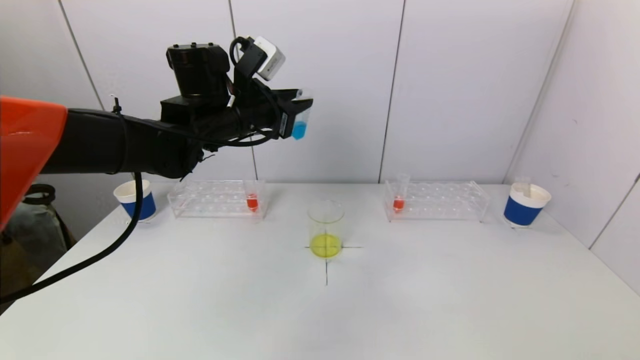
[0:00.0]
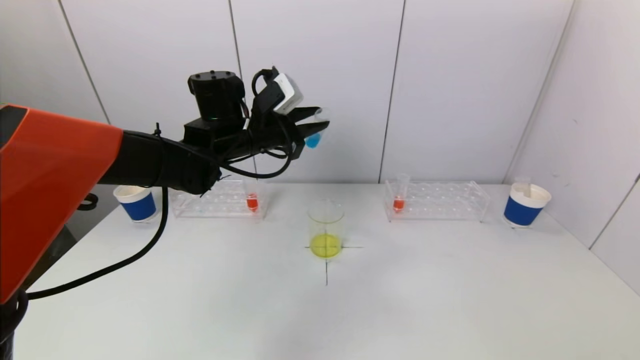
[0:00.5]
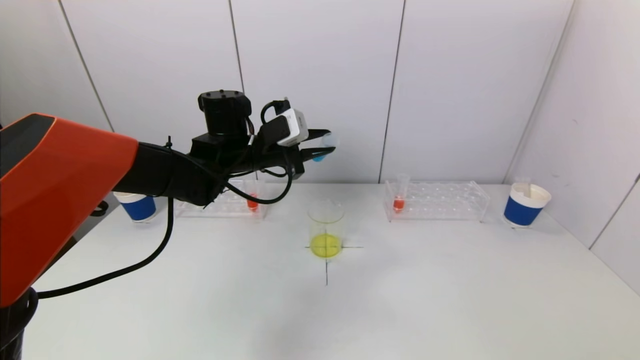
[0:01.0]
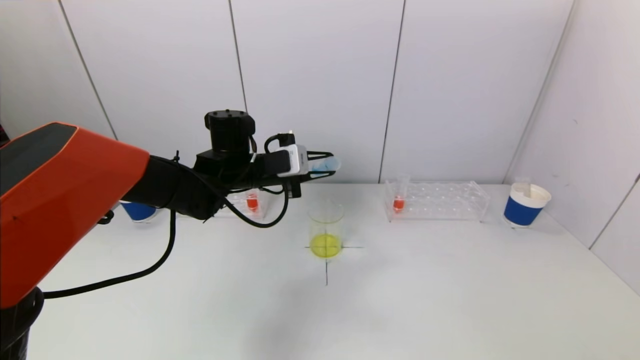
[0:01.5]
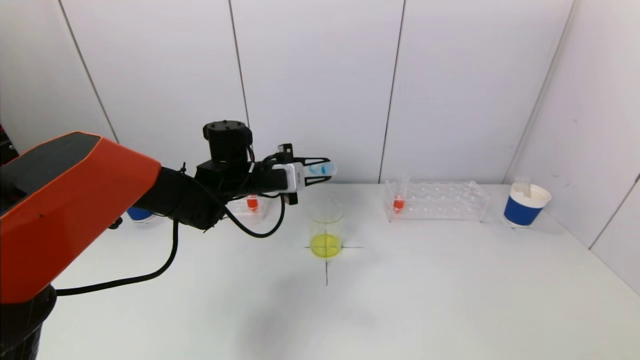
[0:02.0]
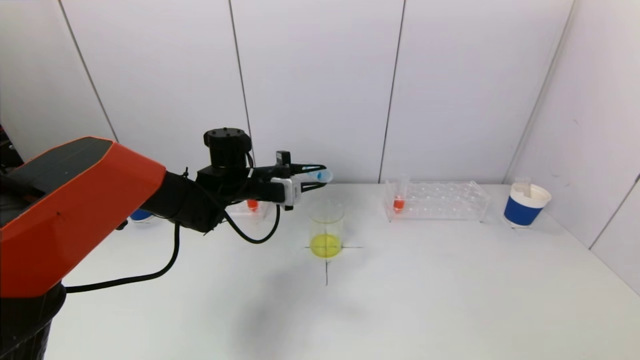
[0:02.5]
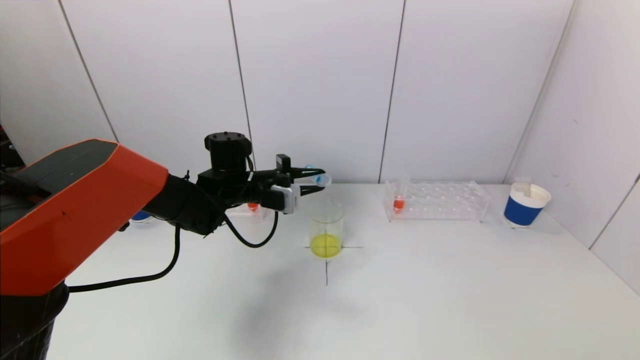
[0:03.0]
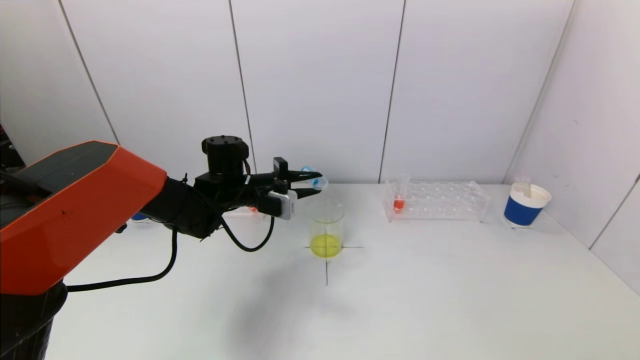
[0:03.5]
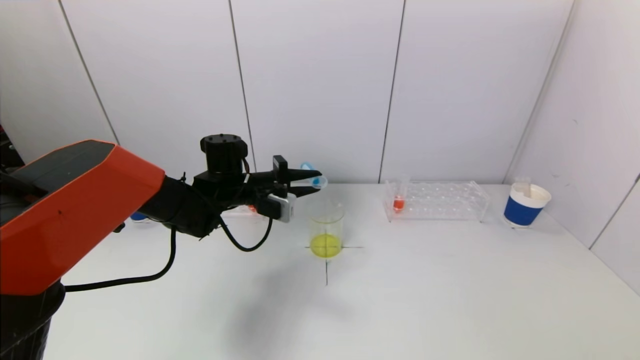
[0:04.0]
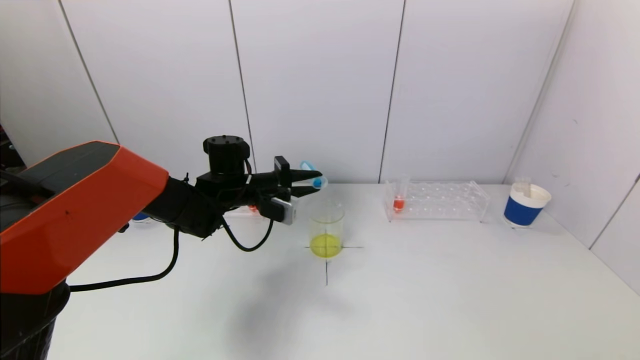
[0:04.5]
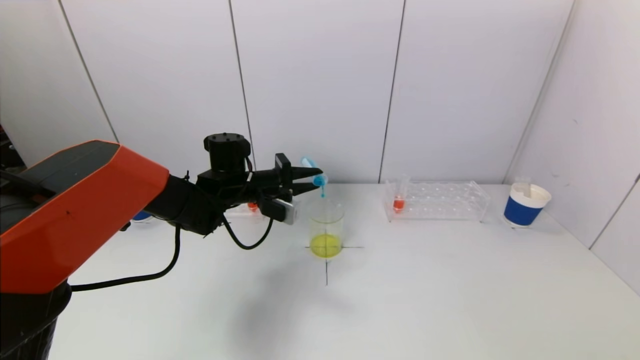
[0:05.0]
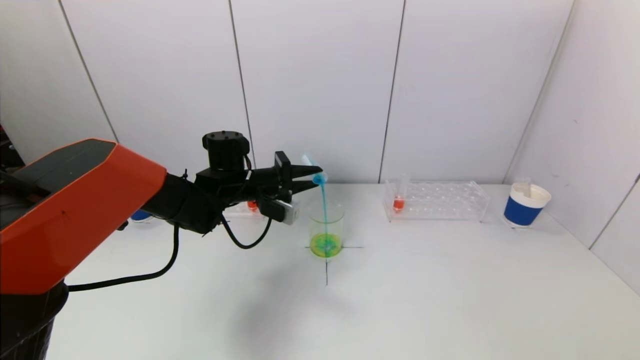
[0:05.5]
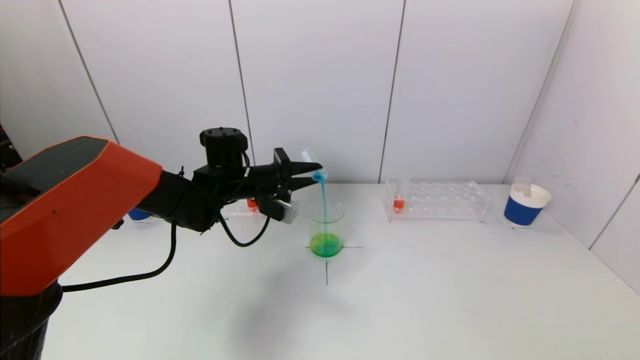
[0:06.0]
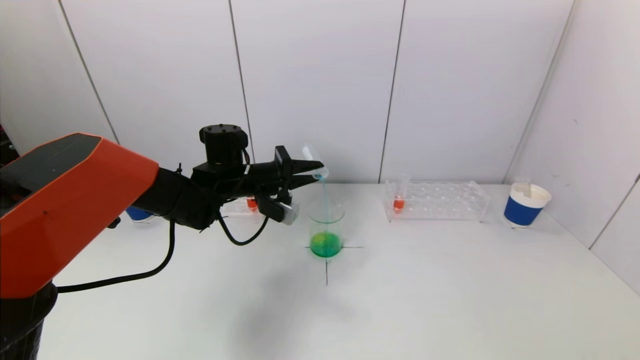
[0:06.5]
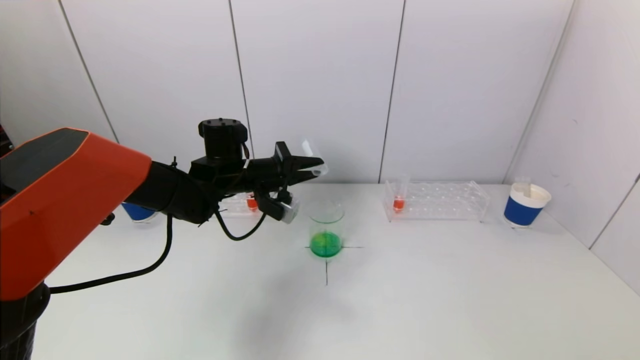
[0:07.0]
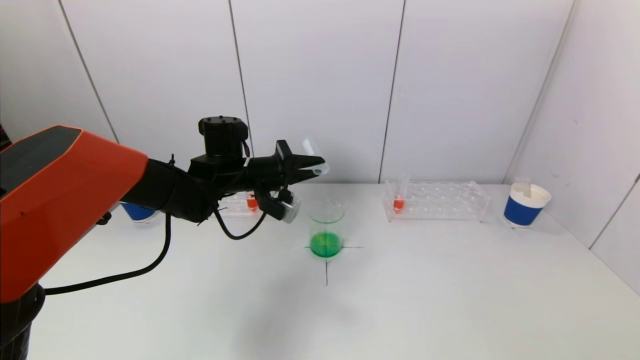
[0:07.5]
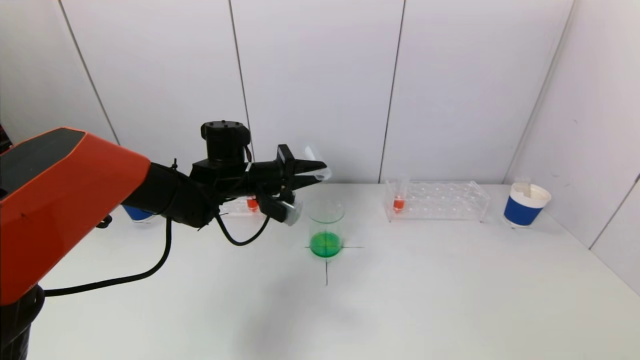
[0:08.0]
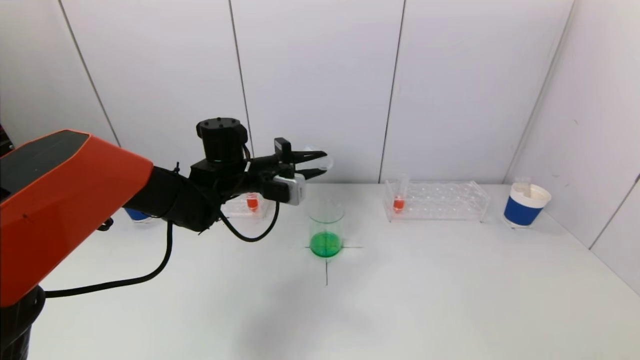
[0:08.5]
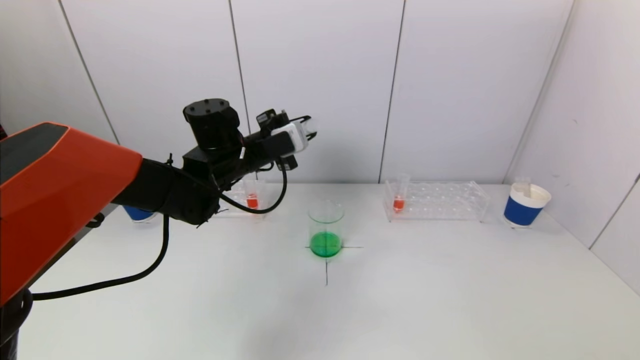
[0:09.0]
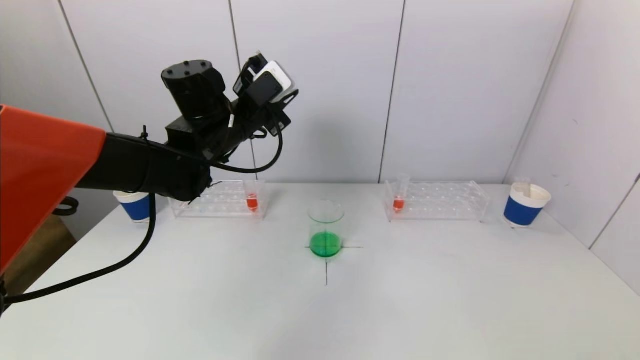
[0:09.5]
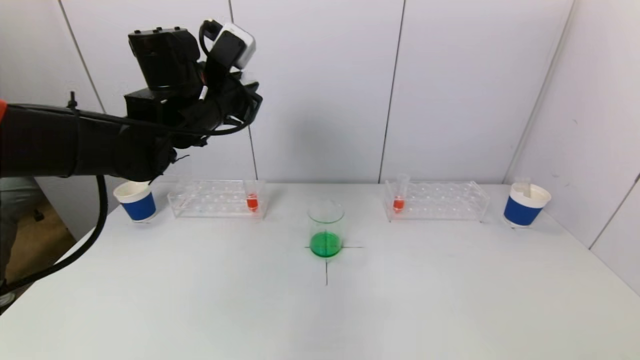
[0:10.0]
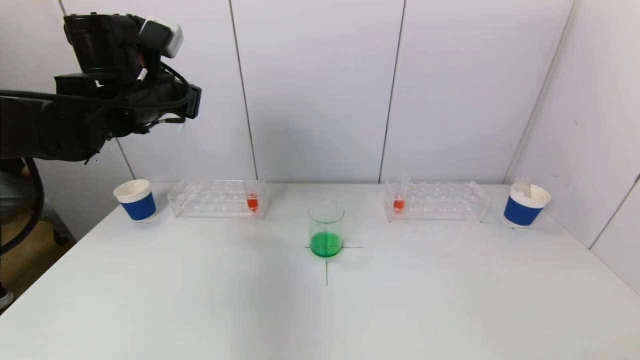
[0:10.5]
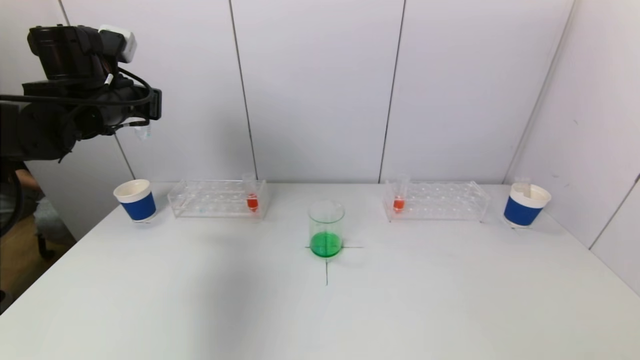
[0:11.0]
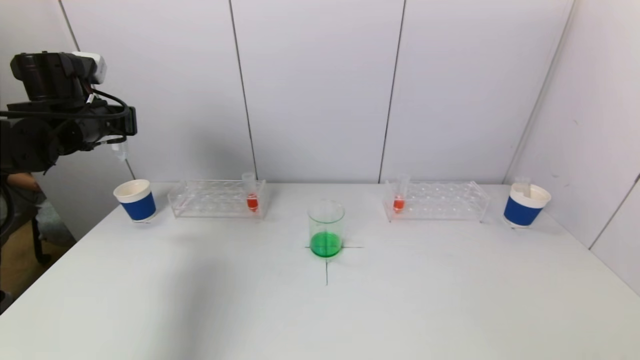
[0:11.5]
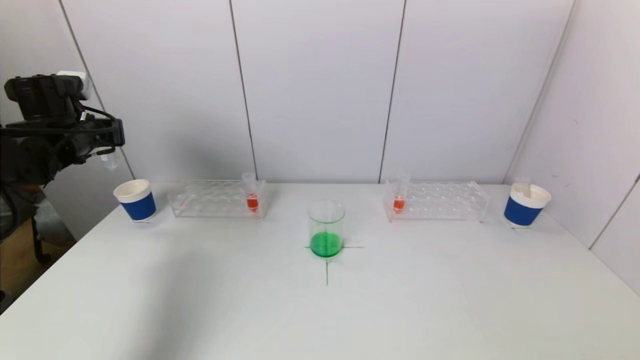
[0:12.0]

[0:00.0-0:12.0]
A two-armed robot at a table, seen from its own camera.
Task of the whole recording: pick up a test tube with pigment on left test tube rack and a test tube with pigment on right test tube rack by grippers and pour them into the beaker.
Step, 0:00.0 to 0:07.0: Pour the blue reagent into the graduated cylinder with the left gripper.
0:00.0 to 0:02.0: The left gripper is displaced downward by about 10 cm.
0:02.0 to 0:04.0: There are only small adjustments of the grippers.
0:04.0 to 0:06.0: The grippers make only small movements.
0:06.0 to 0:08.0: The grippers move only a little.
0:08.0 to 0:10.0: The left gripper shifts approximately 15 cm upward.
0:10.0 to 0:12.0: The left gripper moves to the left, some 20 cm.

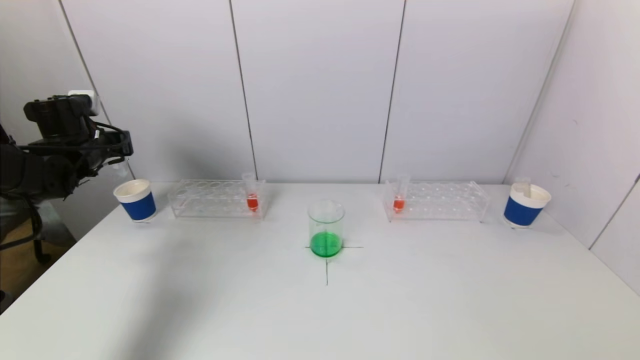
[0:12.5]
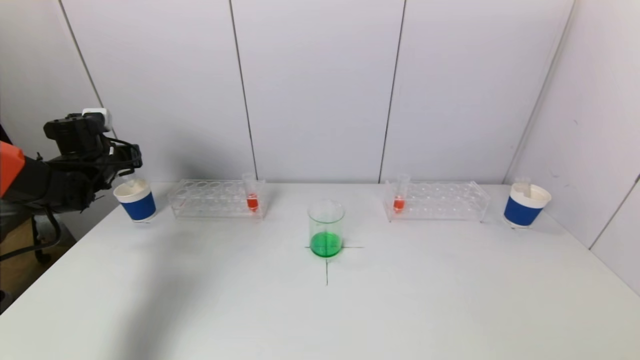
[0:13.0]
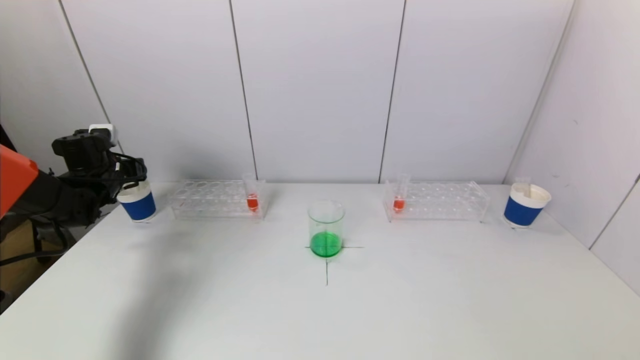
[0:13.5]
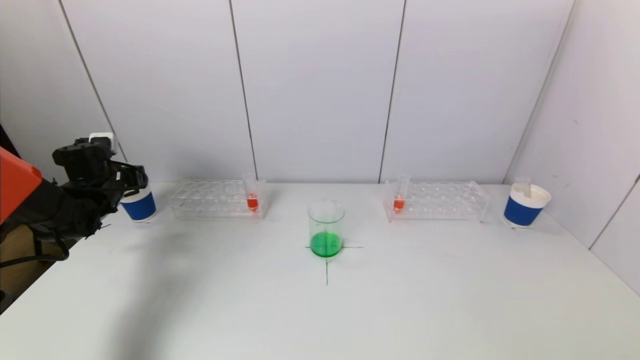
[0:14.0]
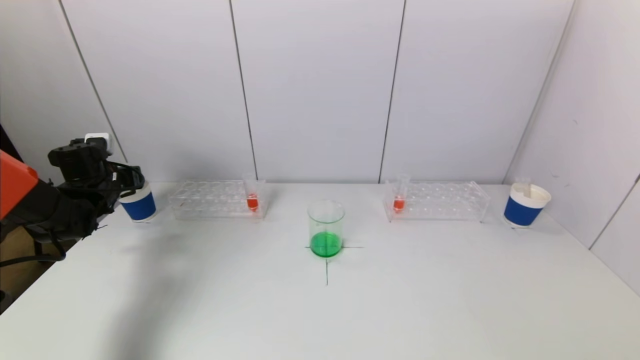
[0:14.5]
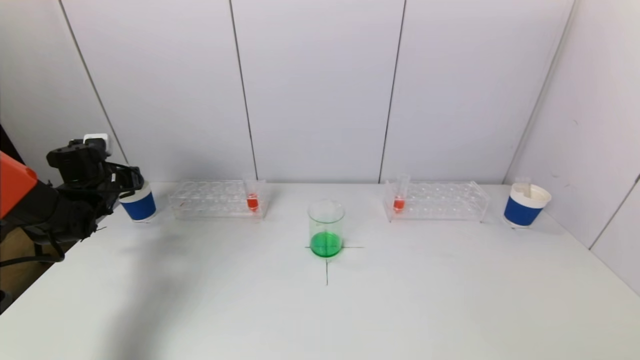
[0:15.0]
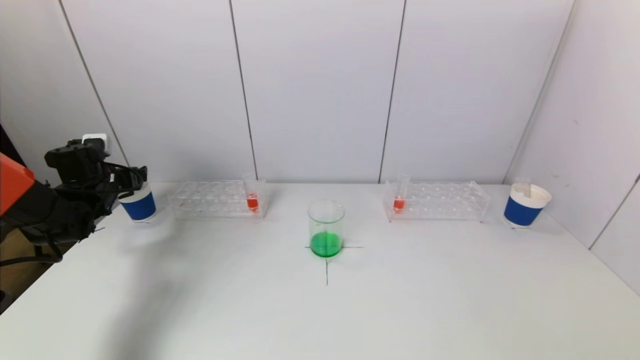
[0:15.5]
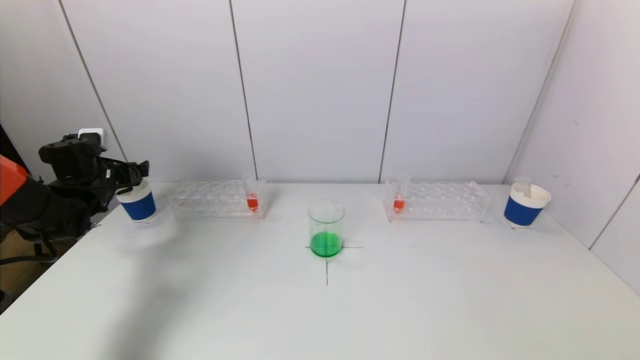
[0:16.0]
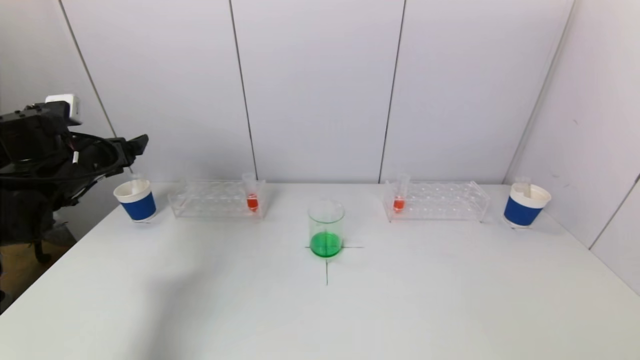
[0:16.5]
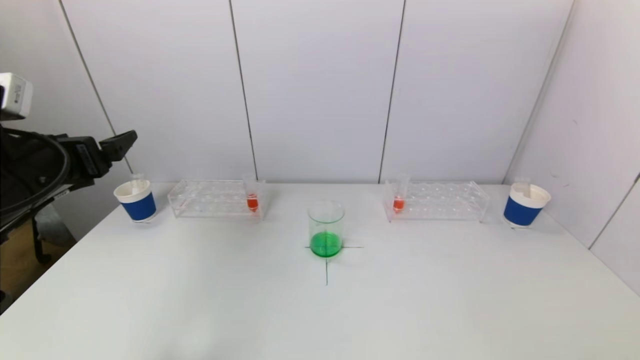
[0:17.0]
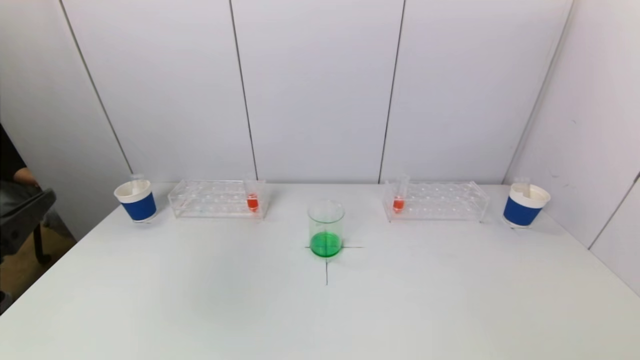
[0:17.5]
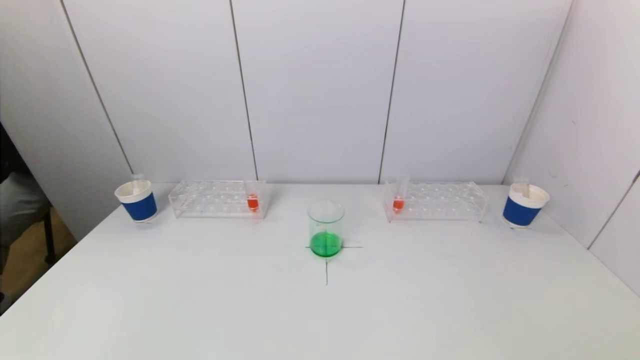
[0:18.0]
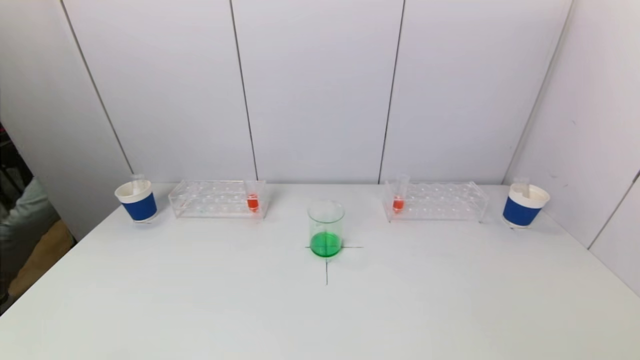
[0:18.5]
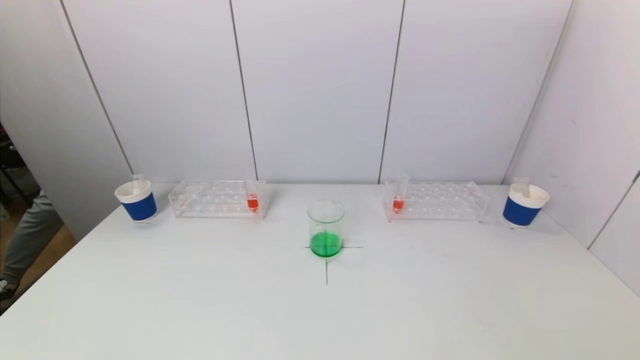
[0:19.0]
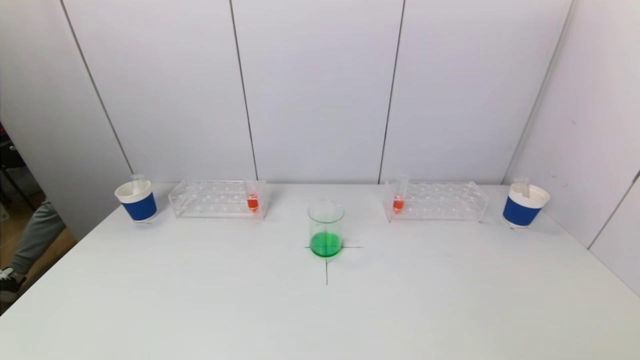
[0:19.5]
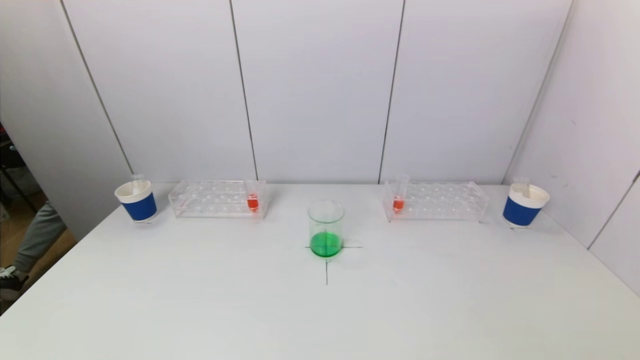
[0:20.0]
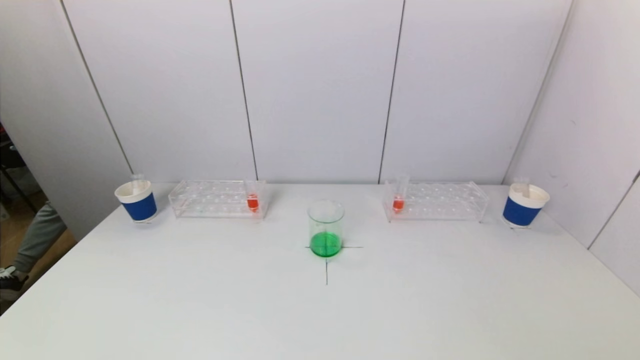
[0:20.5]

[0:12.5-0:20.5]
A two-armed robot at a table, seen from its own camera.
Task of the whole recording: pick up a test tube with pigment on left test tube rack and a test tube with pigment on right test tube rack by grippers and pour them into the beaker.
Step, 0:12.5 to 0:15.5: Place the test tube into the paper cup with the left gripper.
0:12.5 to 0:14.5: The left gripper is displaced downward by about 10 cm.
0:14.5 to 0:16.5: The left gripper is displaced upward, backward and to the right by roughly 15 cm, and opens.
0:16.5 to 0:18.5: The left gripper is displaced backward by some 35 cm.
0:18.5 to 0:20.5: There are only small adjustments of the grippers.
